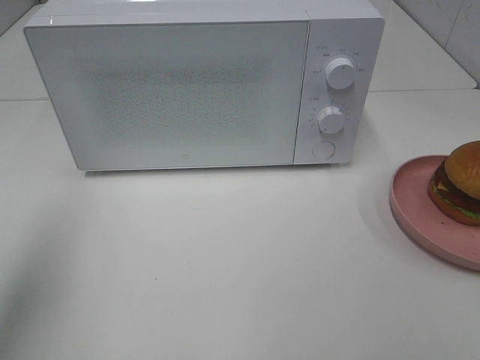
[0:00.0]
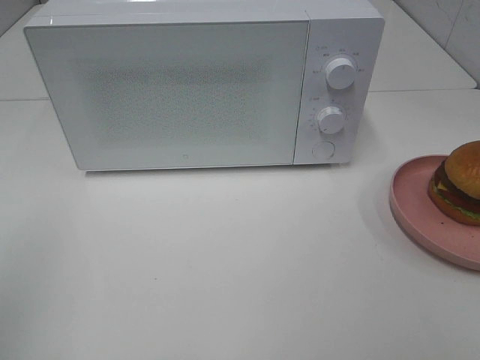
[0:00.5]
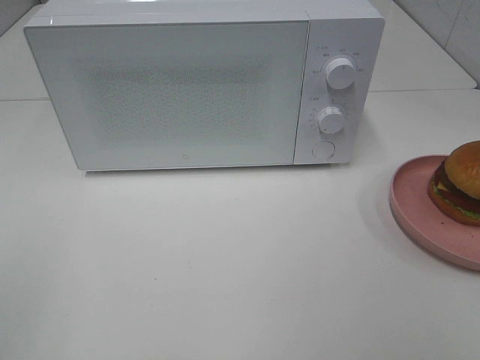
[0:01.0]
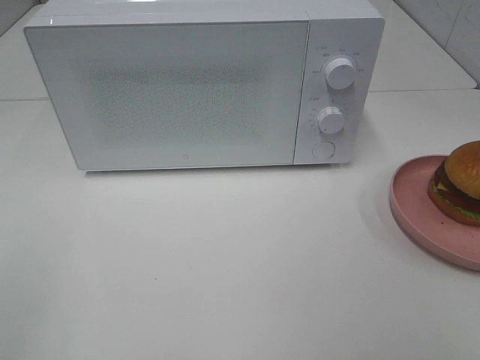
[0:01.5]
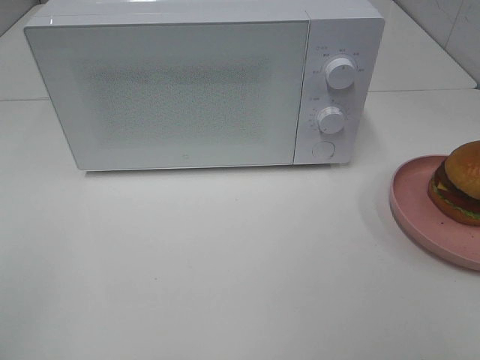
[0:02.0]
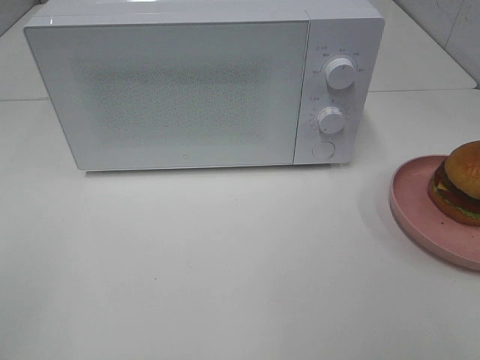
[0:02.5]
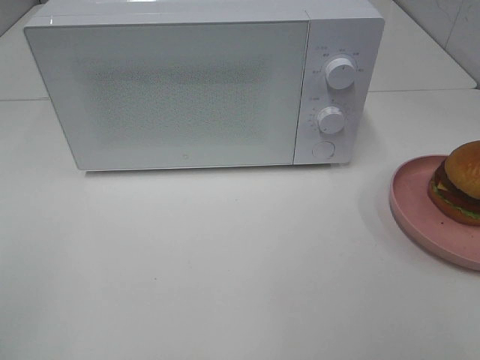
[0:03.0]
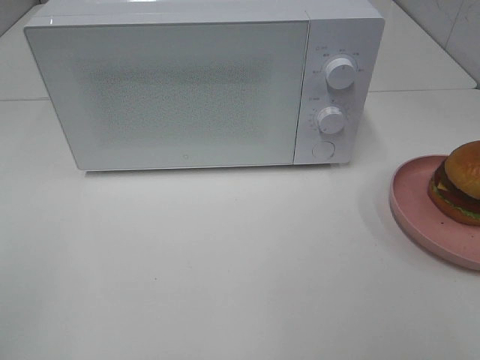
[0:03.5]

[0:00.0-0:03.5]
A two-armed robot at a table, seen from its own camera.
Task of the whole recording: Heat the burger.
0:00.0 to 0:02.0: The left gripper travels backward by roughly 15 cm.

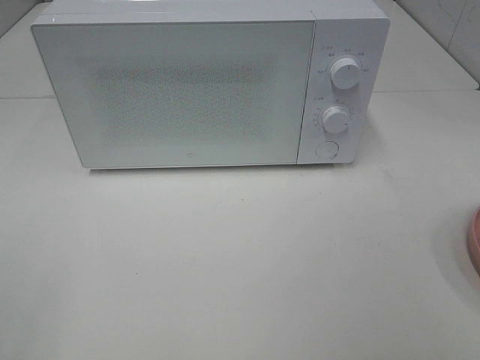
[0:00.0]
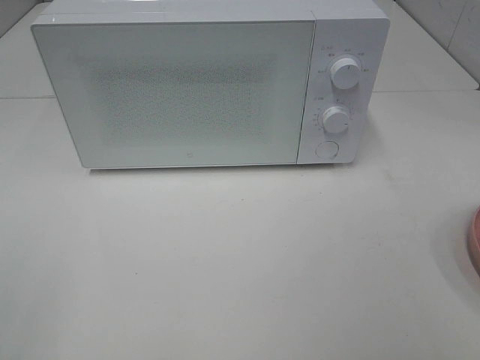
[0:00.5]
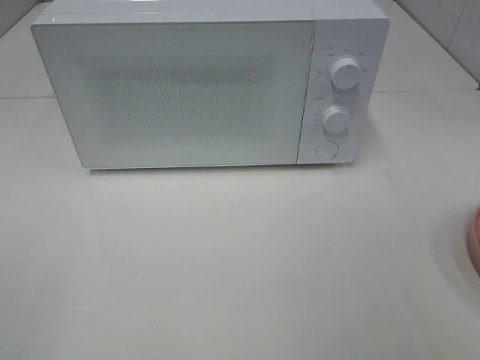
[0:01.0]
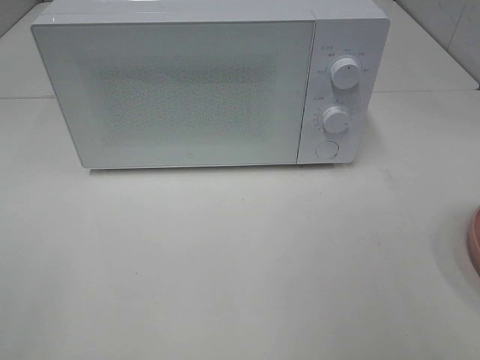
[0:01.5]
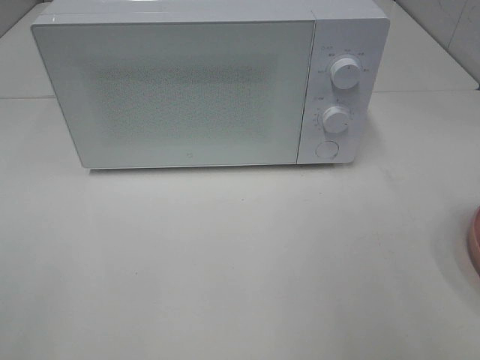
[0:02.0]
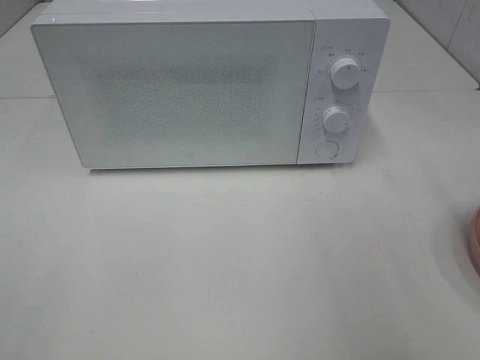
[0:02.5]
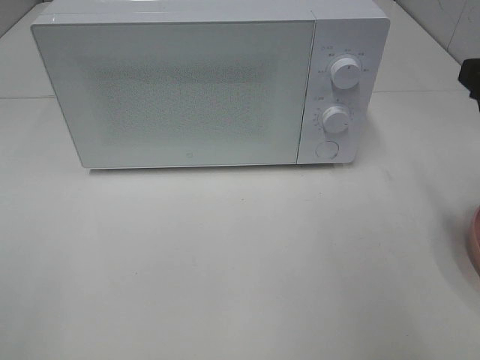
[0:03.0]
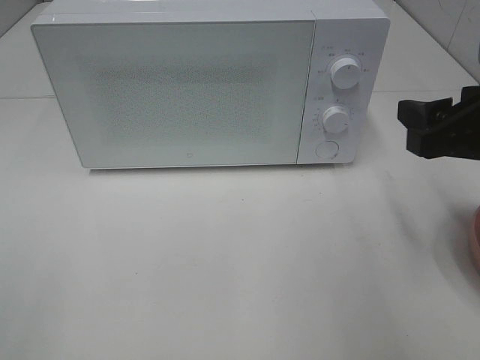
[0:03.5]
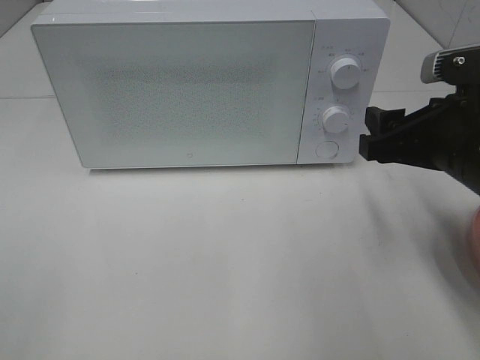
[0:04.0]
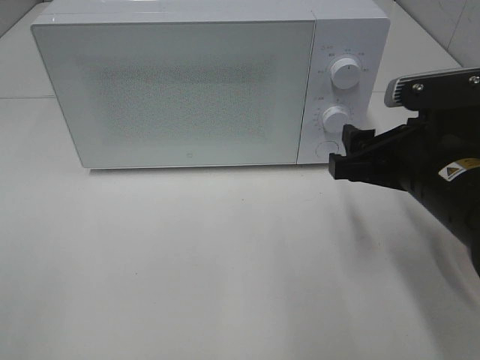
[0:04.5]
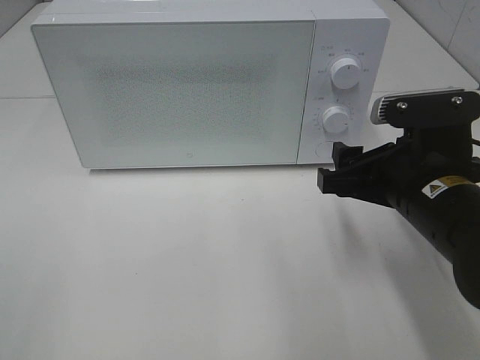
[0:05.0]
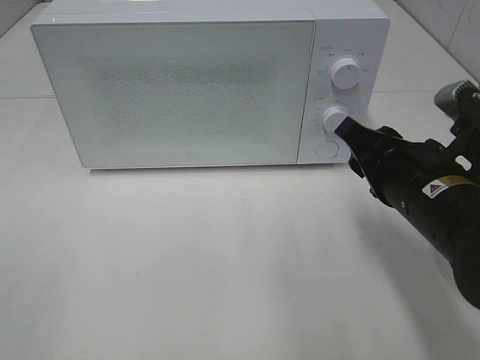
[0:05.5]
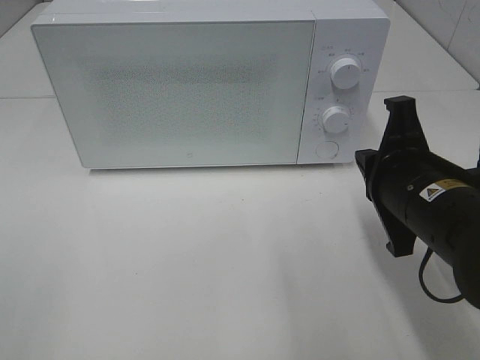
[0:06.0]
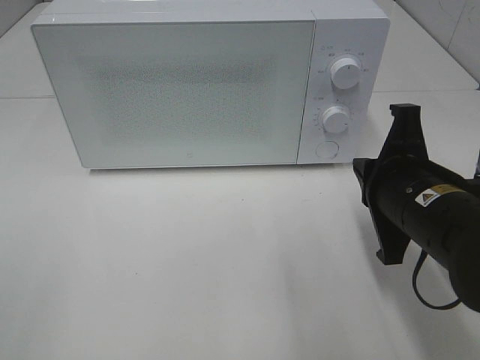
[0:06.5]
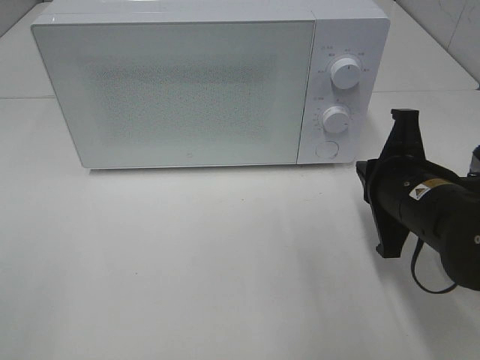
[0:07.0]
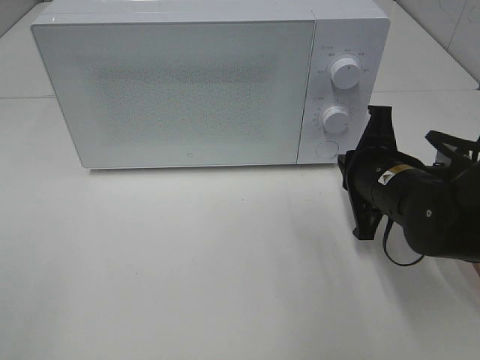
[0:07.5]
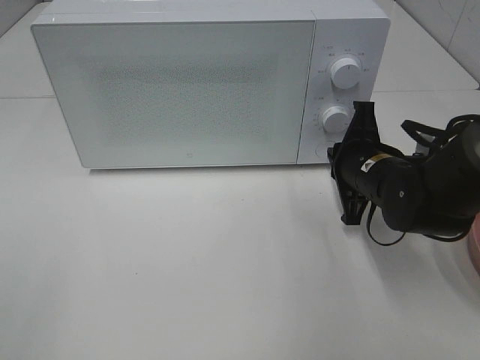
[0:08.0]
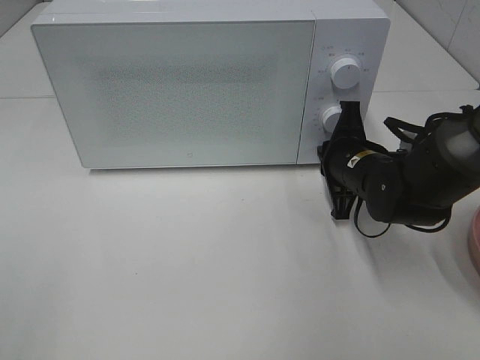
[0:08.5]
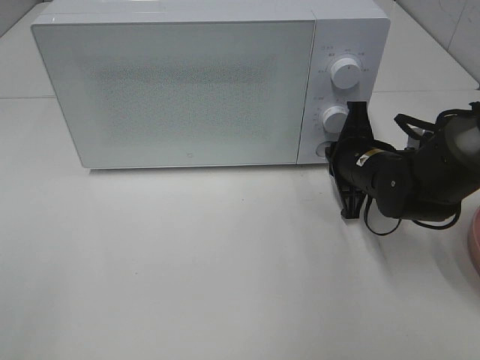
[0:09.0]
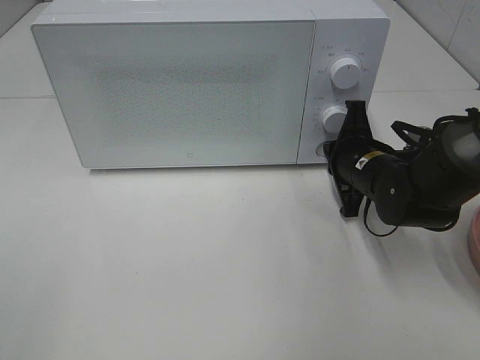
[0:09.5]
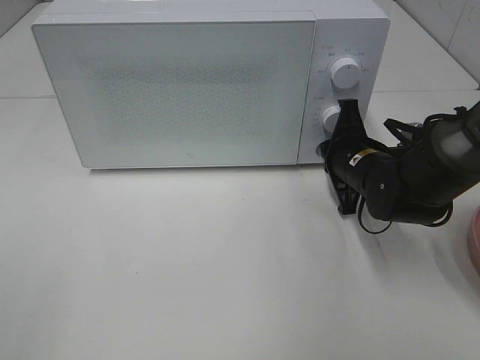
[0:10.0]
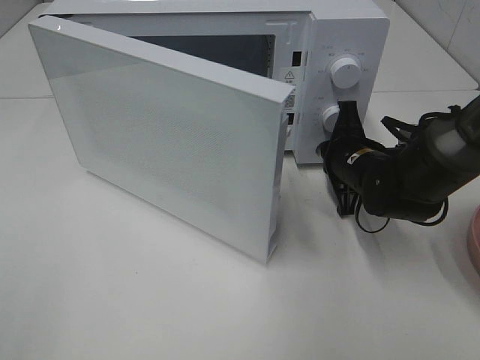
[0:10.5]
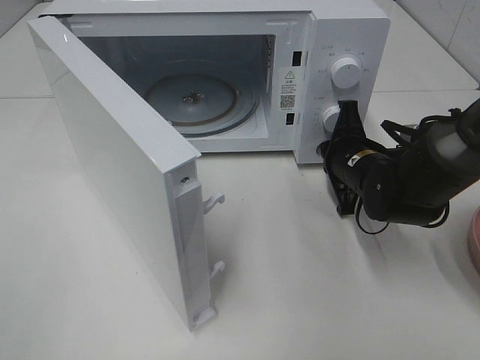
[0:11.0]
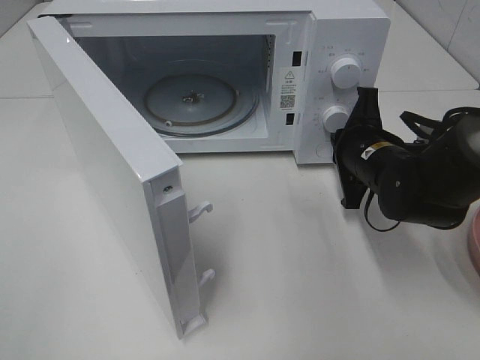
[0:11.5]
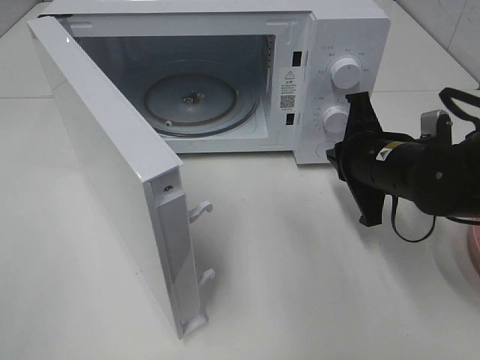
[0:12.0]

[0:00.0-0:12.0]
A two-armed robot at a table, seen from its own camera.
Task of the whole recording: Heat the burger.
Step, 0:00.0 to 0:11.5: Right hand: press the switch.
0:02.0 to 0:04.0: The right gripper shifts roughly 20 cm forward, downward and to the left.
0:04.0 to 0:06.0: The right gripper shifts by about 5 cm, and closes.
0:06.0 to 0:08.0: The right gripper moves forward and downward, some 10 cm.
0:08.0 to 0:10.0: There are only small adjustments of the grippers.
0:10.0 to 0:12.0: The right gripper travels backward by some 5 cm.

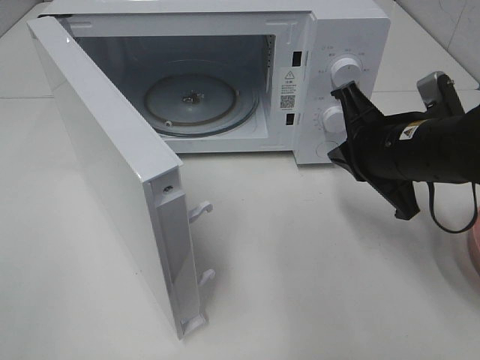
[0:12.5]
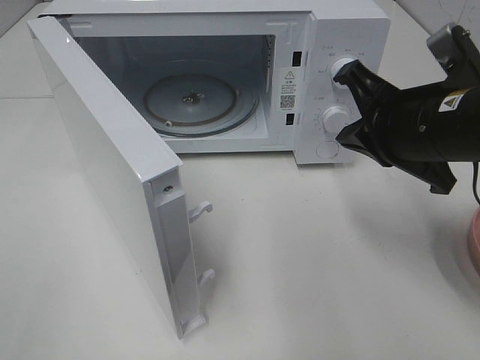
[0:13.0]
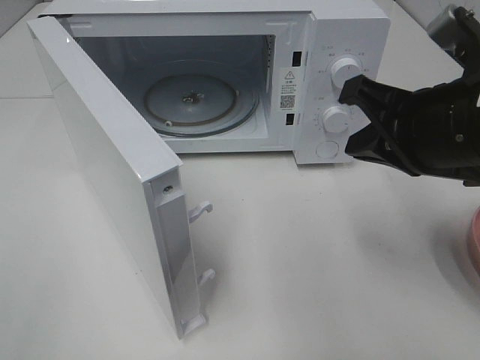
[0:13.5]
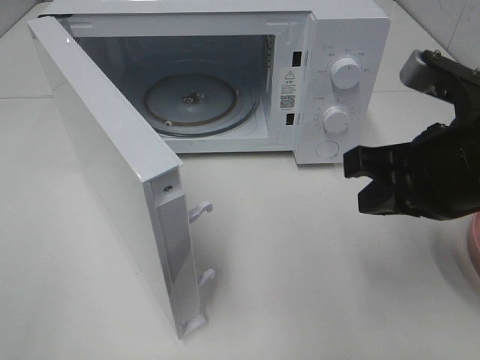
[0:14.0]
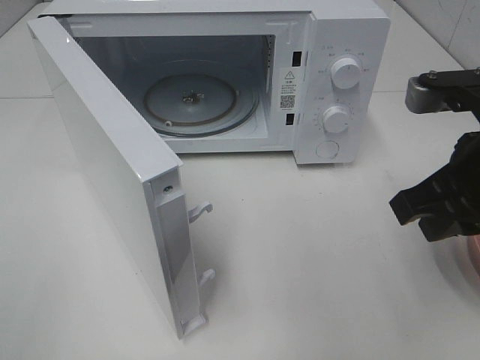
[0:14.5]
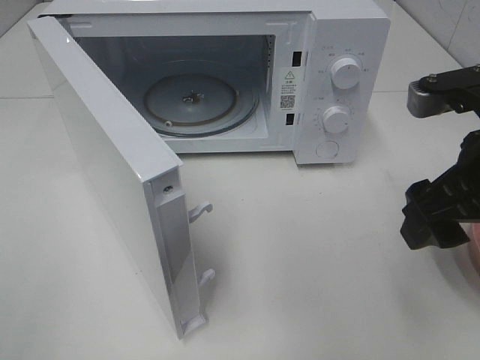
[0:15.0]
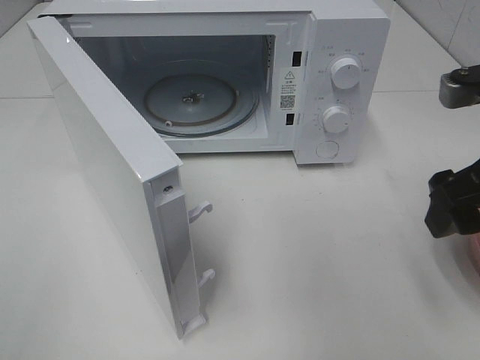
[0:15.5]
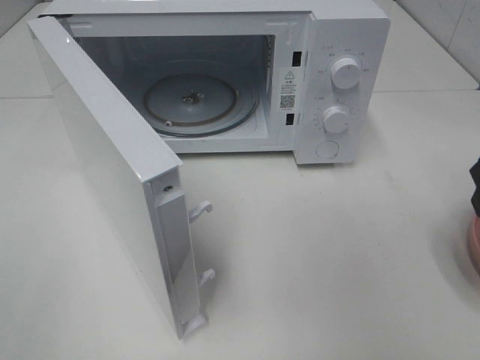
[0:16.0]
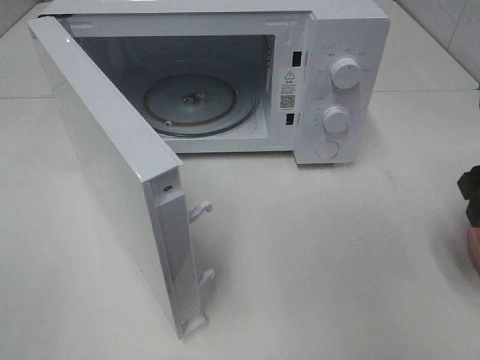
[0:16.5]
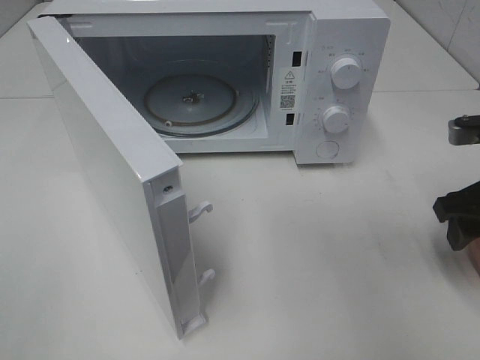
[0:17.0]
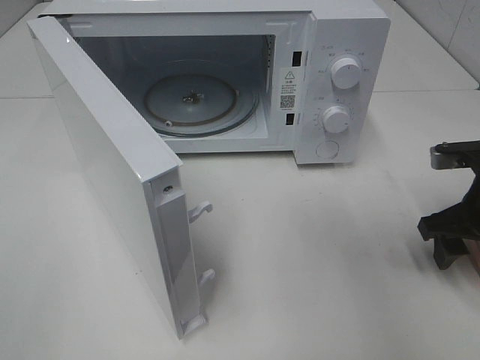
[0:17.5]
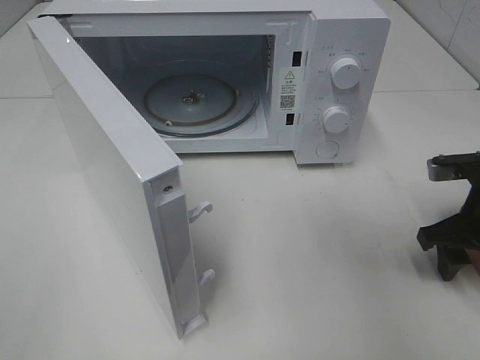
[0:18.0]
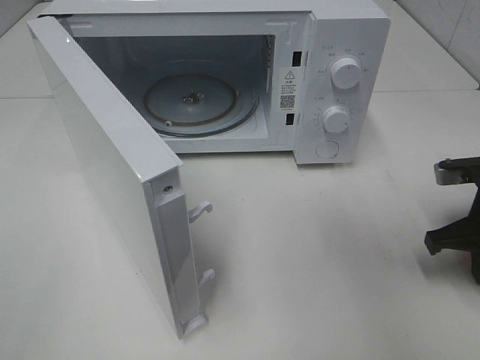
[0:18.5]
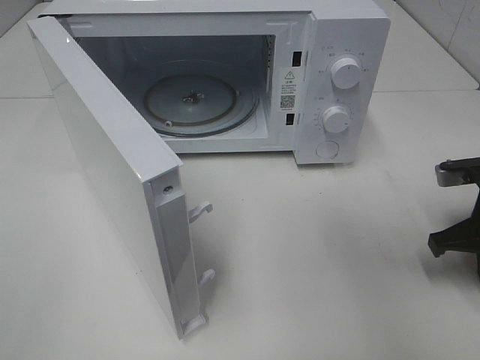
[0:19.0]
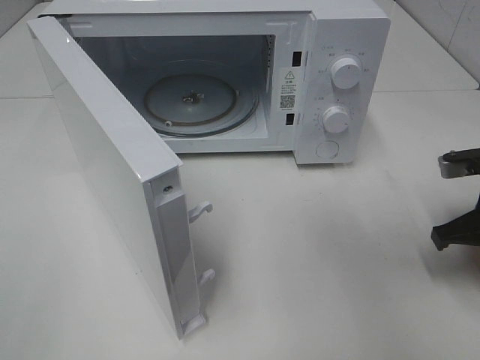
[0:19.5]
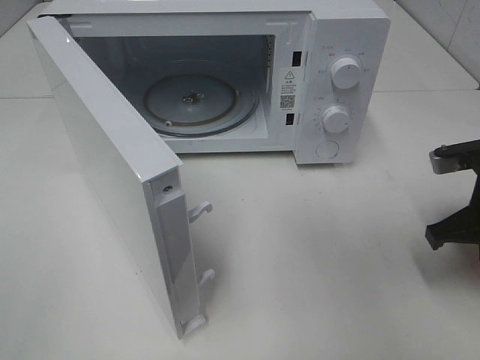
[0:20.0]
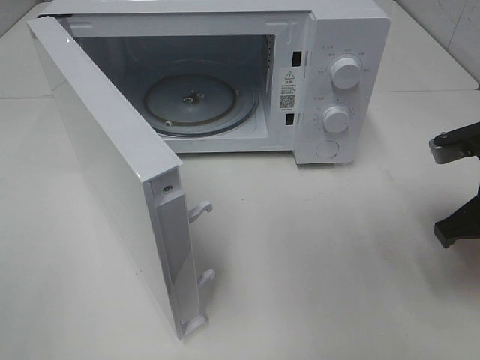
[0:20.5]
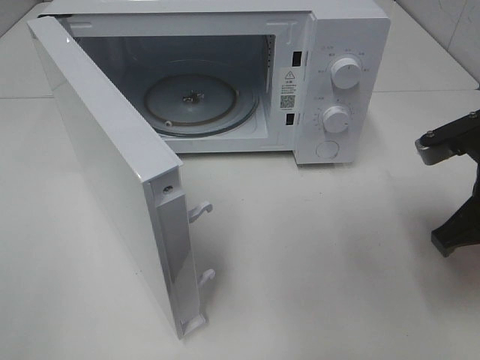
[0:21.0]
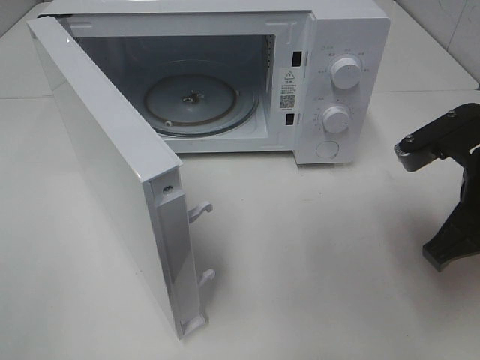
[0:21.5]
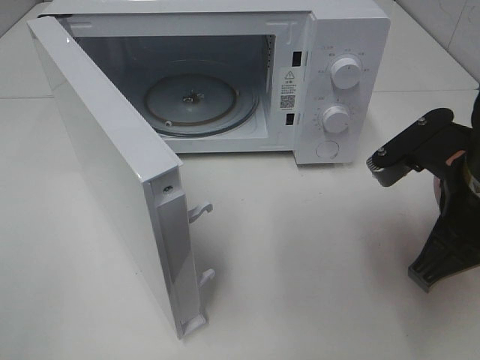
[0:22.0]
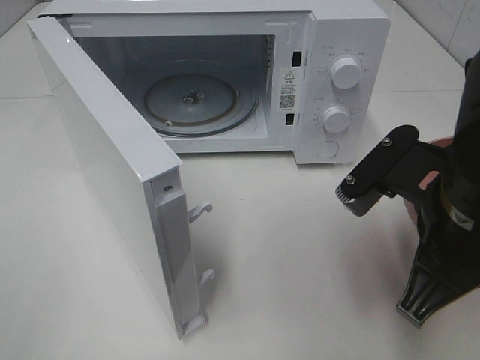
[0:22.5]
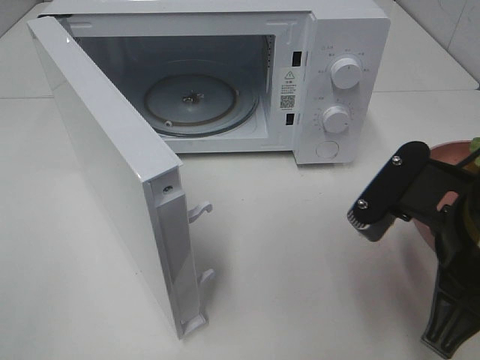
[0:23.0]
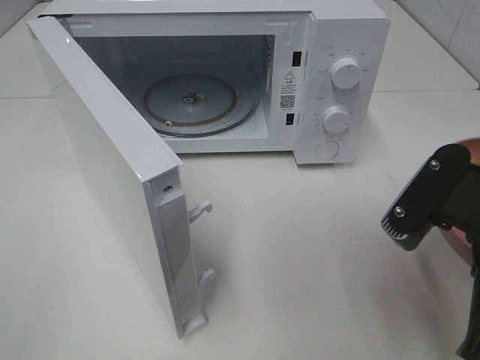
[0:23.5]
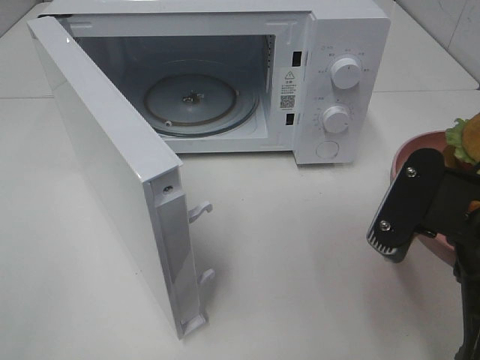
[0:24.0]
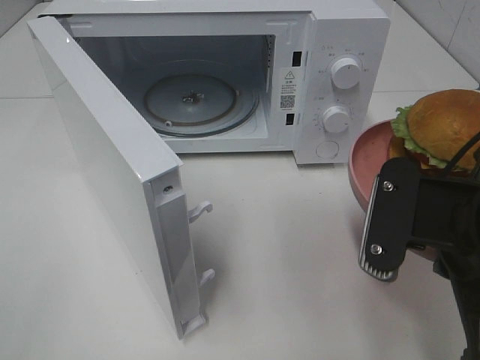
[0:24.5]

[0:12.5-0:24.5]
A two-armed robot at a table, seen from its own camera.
Task of the whole recording: Heat the burger.
Step, 0:12.5 to 0:18.5: Right hand: grab the plate with the hamburger.
0:12.5 to 0:14.5: The right gripper heads backward and upward, covering some 10 cm.
0:14.5 to 0:16.5: The right gripper travels to the right by some 10 cm, and opens.
0:16.5 to 0:18.5: The right gripper moves downward, approximately 10 cm, and closes its fingers.
0:18.5 to 0:20.5: The right gripper is displaced upward by some 5 cm.
0:20.5 to 0:22.5: The right gripper goes some 15 cm to the left and backward.
